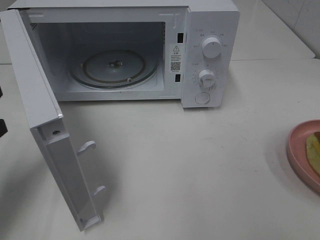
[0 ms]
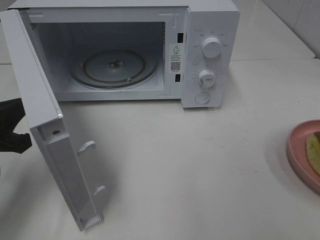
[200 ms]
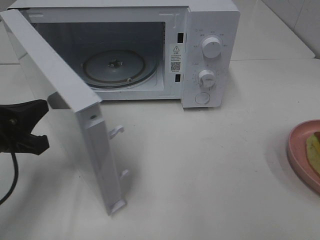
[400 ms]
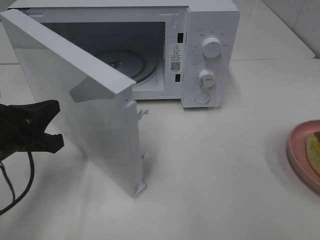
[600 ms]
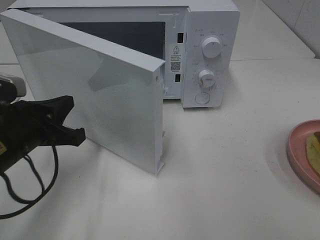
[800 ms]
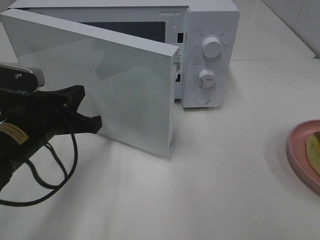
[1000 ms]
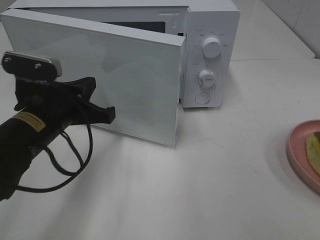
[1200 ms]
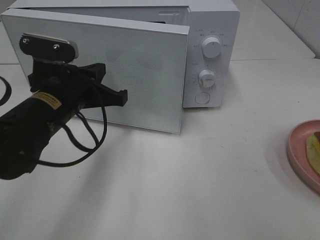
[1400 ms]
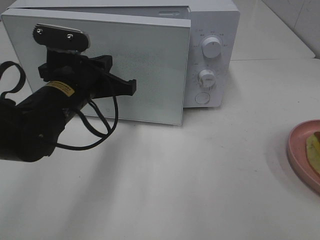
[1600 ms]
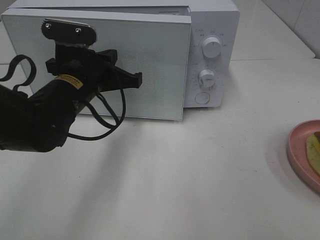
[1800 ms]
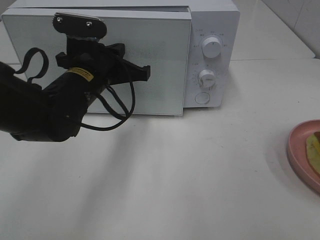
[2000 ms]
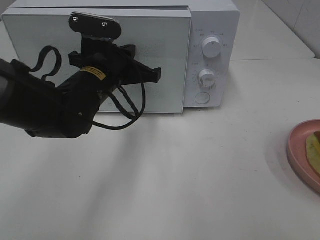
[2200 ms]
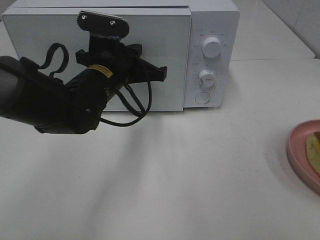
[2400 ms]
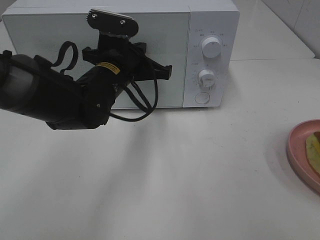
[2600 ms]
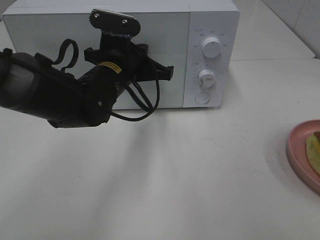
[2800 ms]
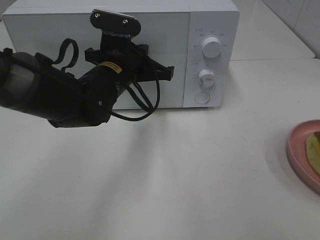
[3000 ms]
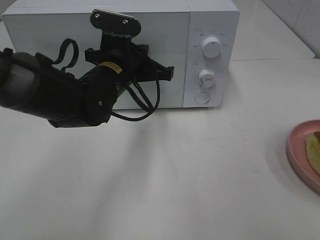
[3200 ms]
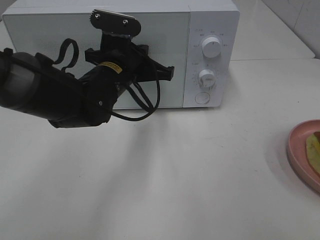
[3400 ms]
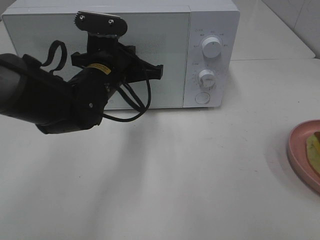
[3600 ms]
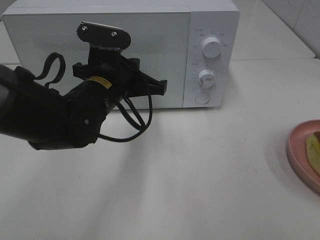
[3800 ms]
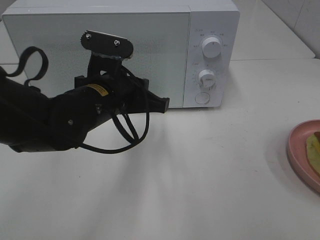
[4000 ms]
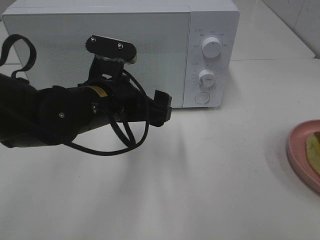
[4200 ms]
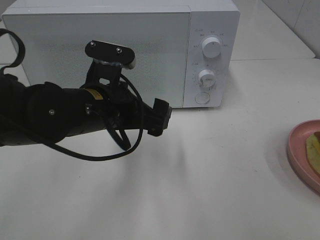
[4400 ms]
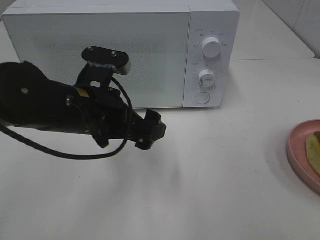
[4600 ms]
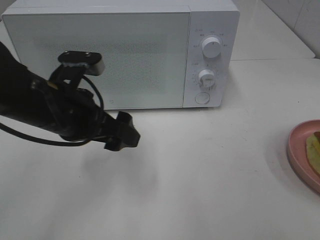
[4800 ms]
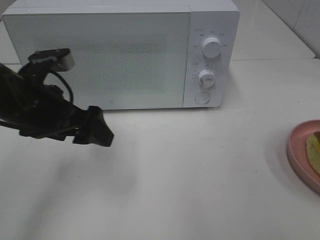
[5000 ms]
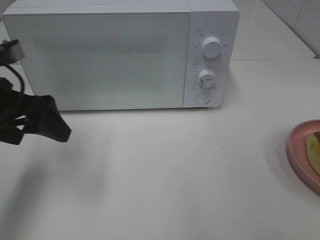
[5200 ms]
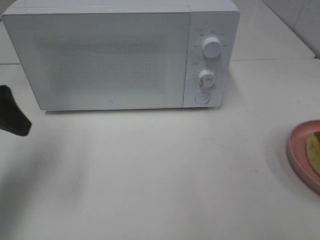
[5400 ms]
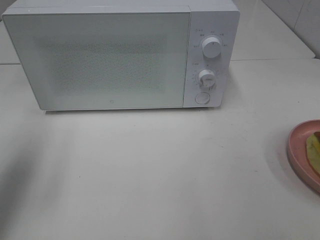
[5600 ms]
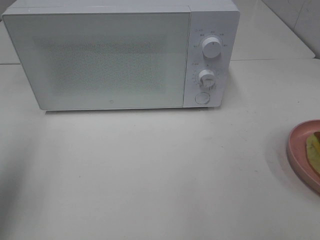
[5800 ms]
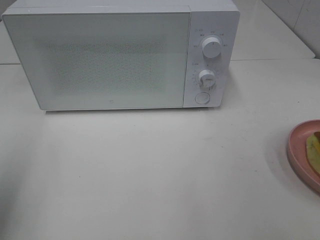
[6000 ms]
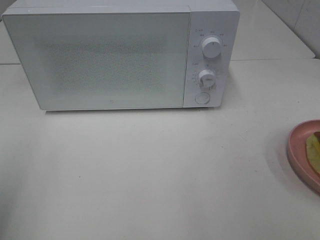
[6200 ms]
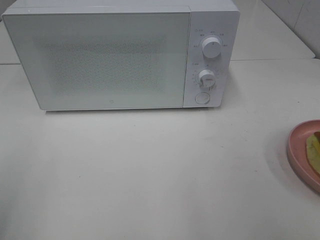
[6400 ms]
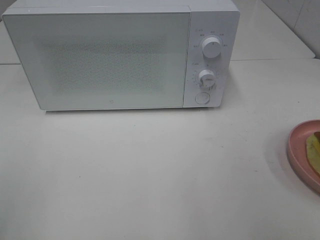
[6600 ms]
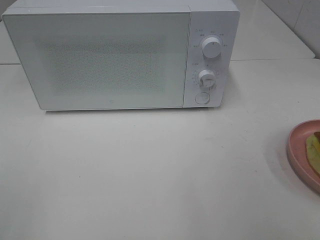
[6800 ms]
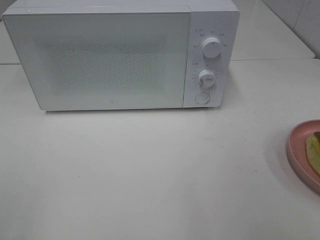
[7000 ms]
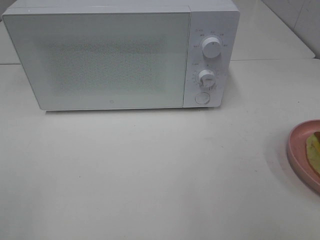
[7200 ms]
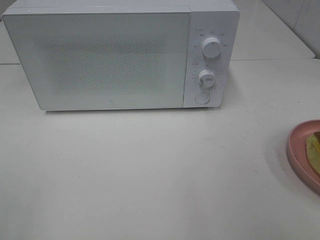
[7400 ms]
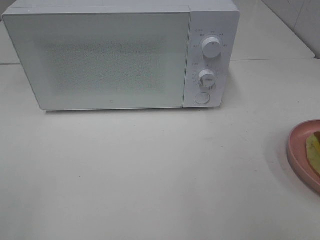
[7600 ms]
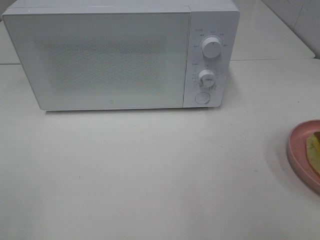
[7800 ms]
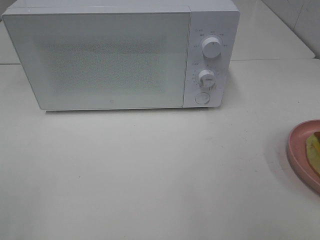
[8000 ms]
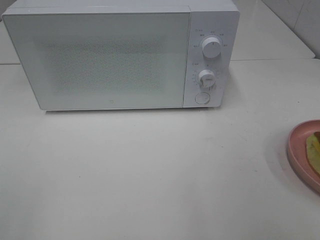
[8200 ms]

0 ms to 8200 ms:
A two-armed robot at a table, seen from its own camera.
Task of the whole recording: Heat Sandwich.
Step, 0 ms to 4200 ms: Left hand: close the microwave door.
0 ms to 1600 ms: The left gripper goes about 20 cm to the right and forward.
1600 ms to 3200 ms: The left gripper moves to the right and forward, about 10 cm.
3200 ms to 5000 ms: The left gripper heads to the left and backward, covering some 15 cm, and opens its fingers.
5000 ms to 6600 ms: The left gripper heads backward and to the left, covering about 25 cm.

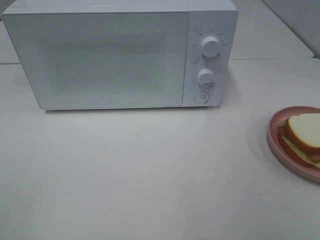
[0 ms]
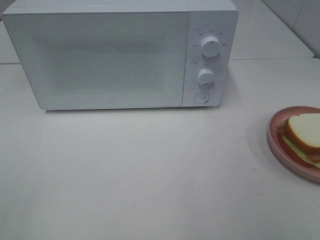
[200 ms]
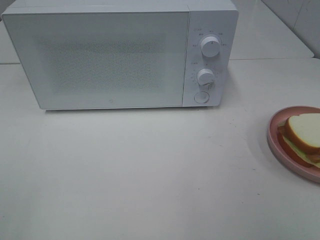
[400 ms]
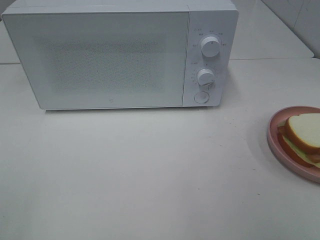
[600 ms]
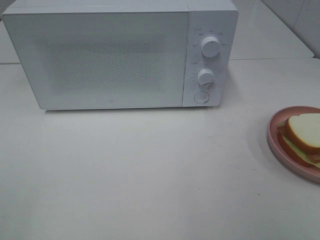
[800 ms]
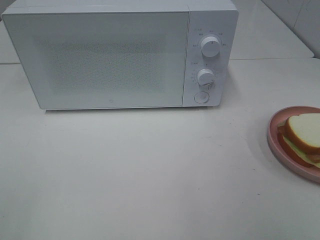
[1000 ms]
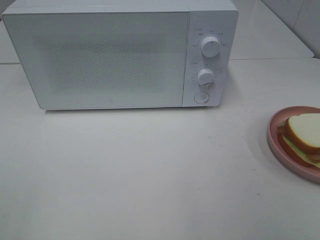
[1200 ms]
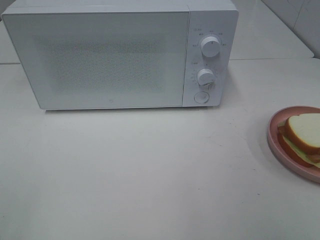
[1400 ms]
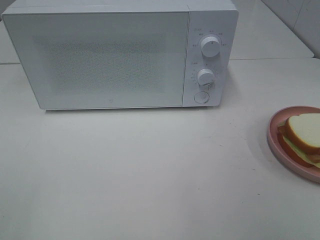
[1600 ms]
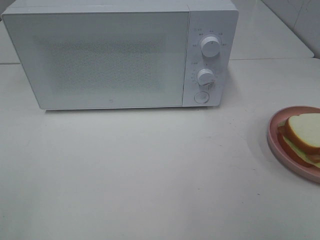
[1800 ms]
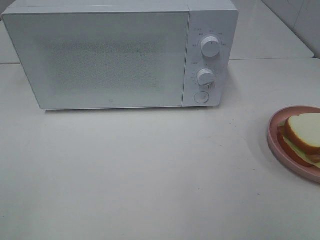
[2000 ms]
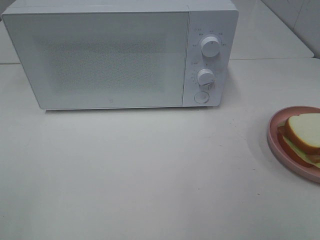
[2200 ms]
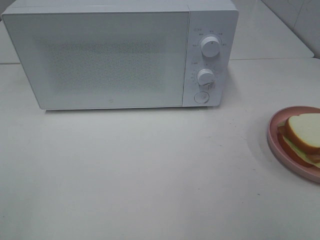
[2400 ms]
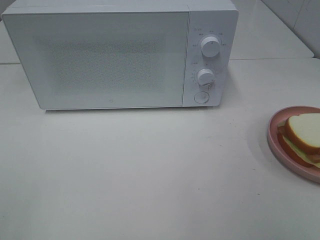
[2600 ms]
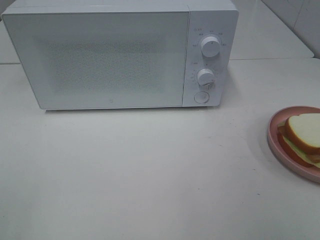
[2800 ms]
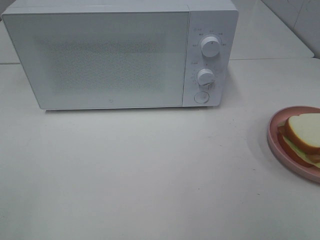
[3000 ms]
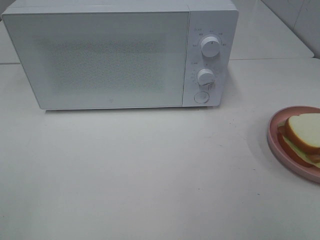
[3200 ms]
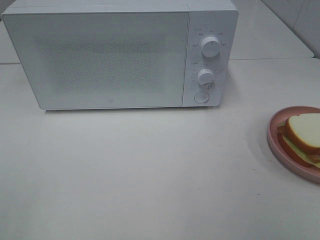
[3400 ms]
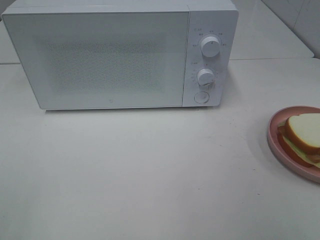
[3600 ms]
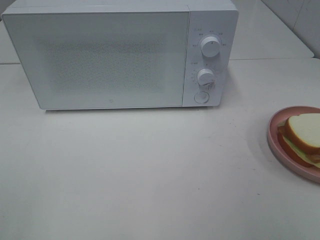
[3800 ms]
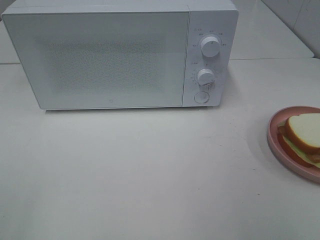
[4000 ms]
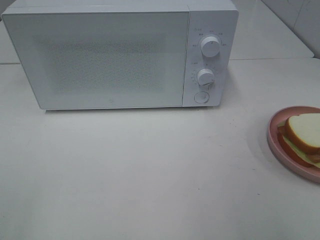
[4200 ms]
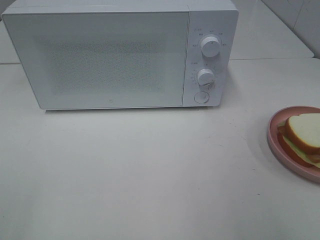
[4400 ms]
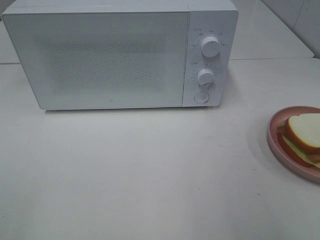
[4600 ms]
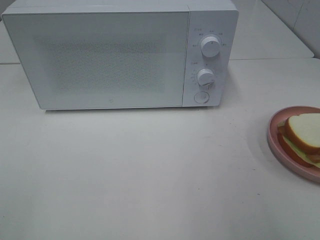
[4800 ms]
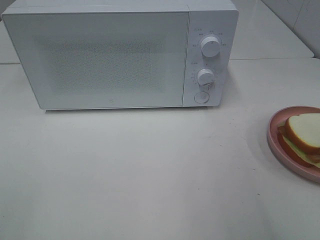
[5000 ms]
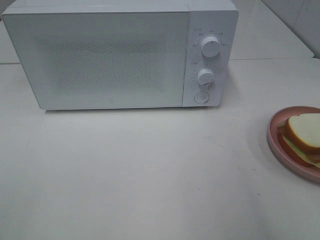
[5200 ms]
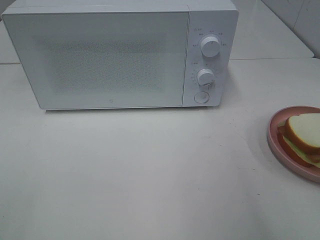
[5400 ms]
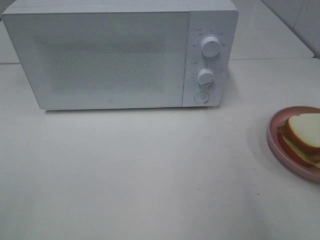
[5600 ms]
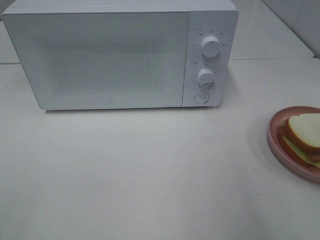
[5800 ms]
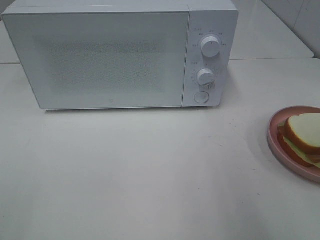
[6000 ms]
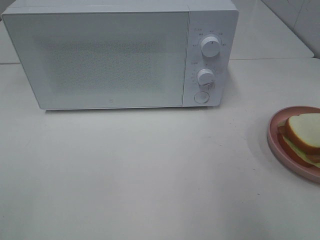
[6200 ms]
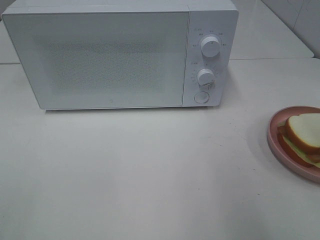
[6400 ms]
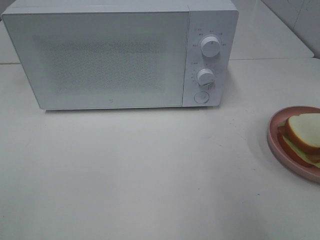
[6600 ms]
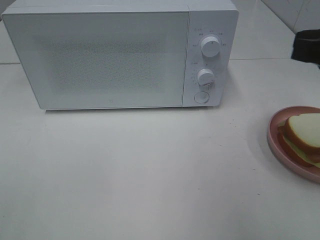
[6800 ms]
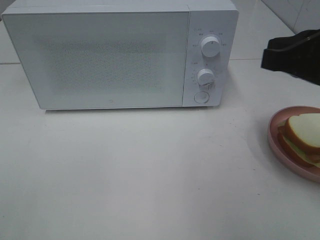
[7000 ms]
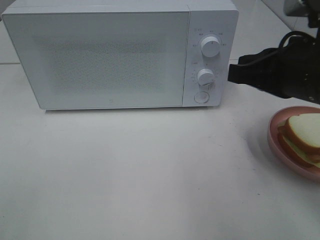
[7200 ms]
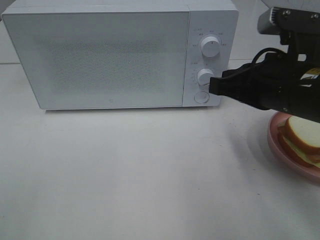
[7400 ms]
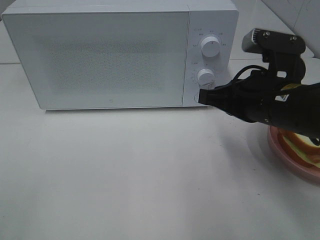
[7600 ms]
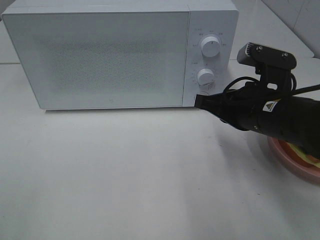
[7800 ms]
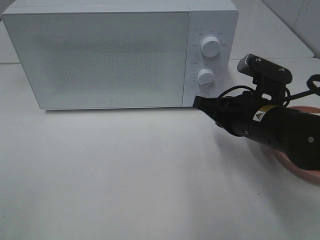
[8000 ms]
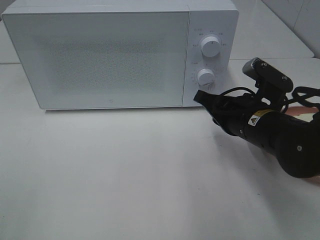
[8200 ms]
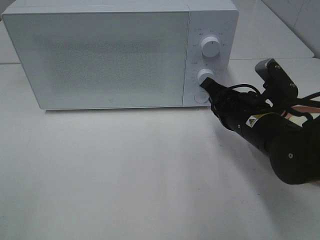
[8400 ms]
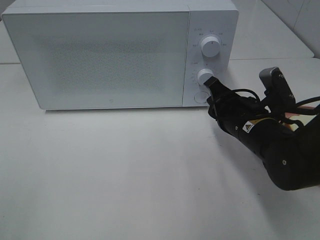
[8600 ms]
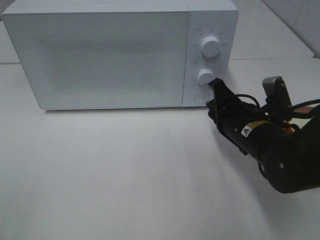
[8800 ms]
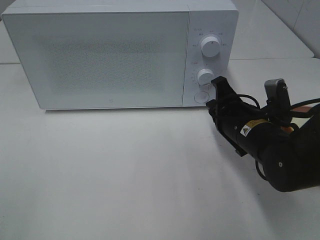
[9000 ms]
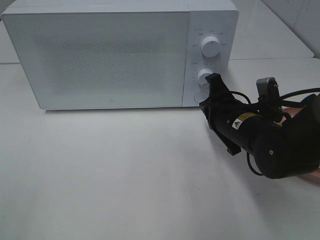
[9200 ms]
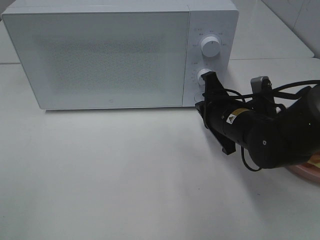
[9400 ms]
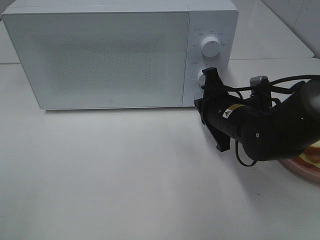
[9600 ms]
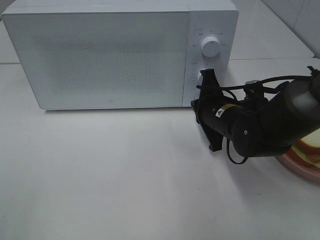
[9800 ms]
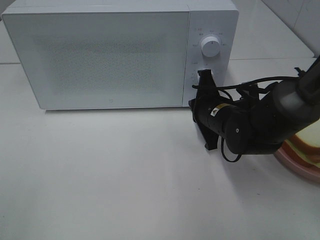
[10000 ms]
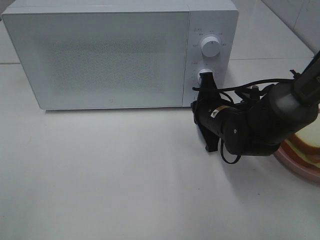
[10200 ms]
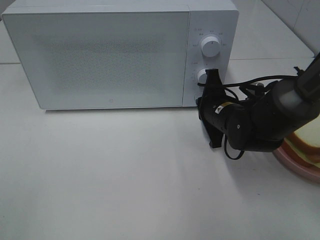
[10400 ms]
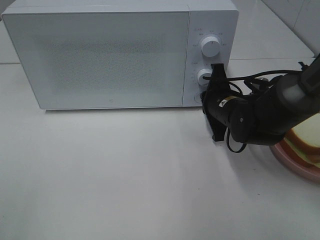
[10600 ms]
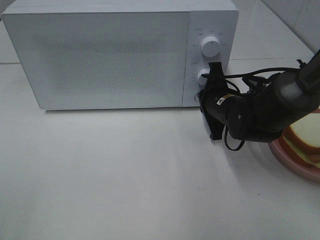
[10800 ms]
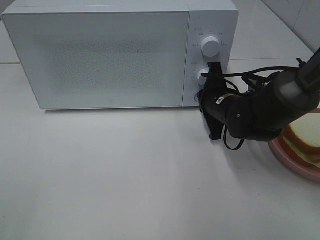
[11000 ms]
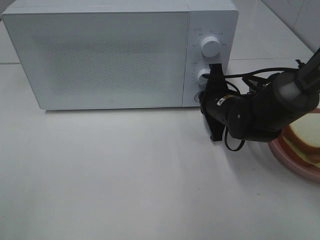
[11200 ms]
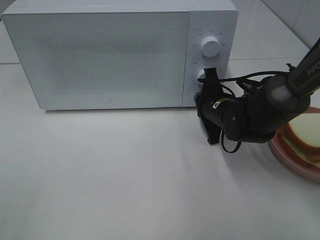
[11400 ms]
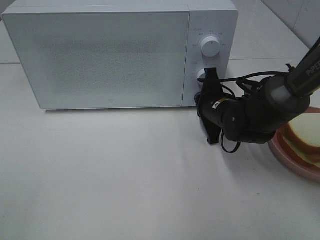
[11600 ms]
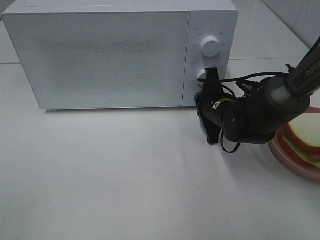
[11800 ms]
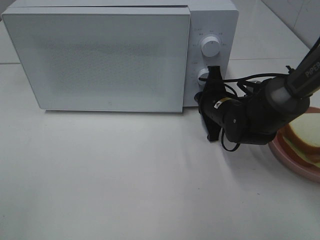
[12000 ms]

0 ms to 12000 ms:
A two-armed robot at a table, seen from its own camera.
Task of the whole recording: Heat Sandwich.
0 ms to 3000 ms: The two grippers keep their place.
6000 ms to 7600 ms: The right gripper is displaced downward, to the left and forward by some 20 cm.
7600 ms to 9000 ms: The right gripper travels downward by approximately 10 cm.
9000 ms to 10400 ms: The right gripper moves forward, some 5 cm.
10400 ms to 12000 ms: There are only small adjustments of the grippers.

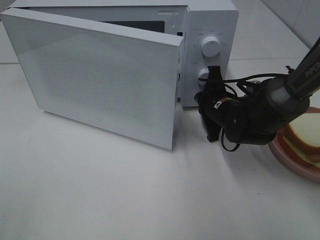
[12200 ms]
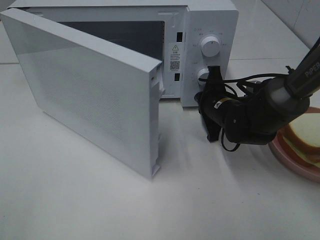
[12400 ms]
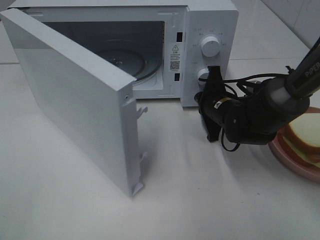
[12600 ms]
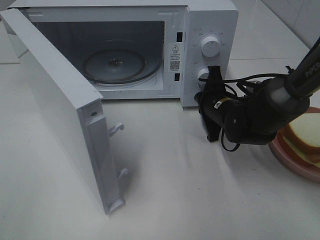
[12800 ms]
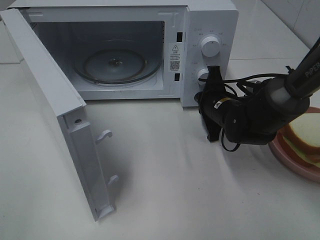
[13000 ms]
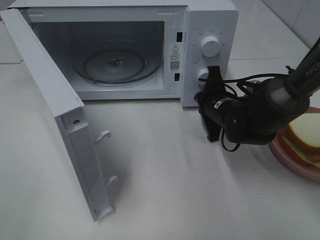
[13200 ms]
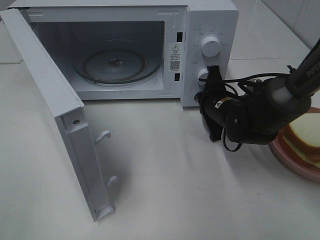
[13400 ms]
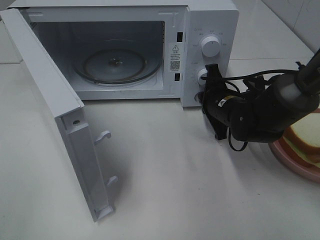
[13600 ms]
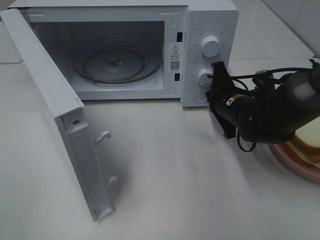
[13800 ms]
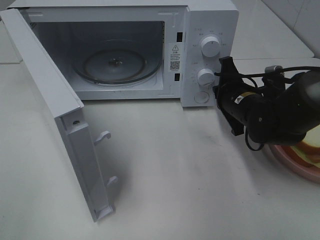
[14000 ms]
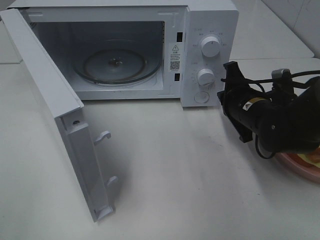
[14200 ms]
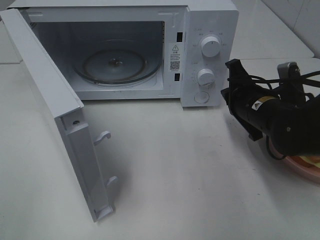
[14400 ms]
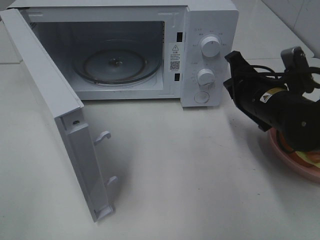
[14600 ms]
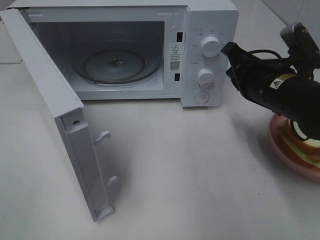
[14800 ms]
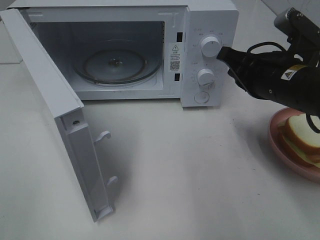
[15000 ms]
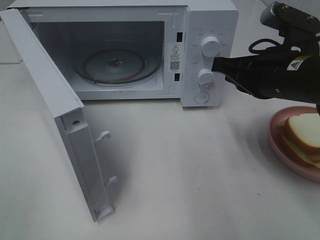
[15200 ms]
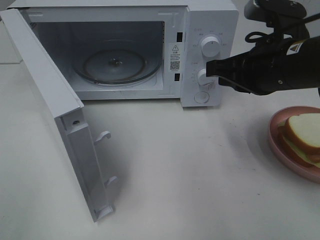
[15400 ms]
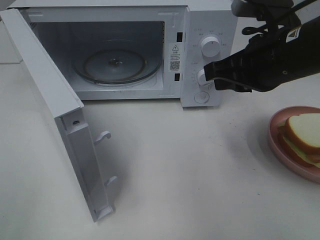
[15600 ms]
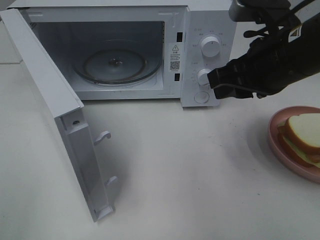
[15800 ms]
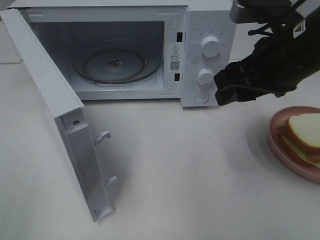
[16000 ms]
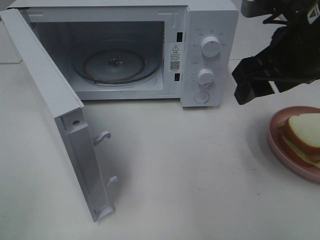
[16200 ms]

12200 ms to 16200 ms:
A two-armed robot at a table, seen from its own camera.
Task of the whole recording: Heat Sandwich.
13600 ms to 14800 ms: The right gripper goes roughly 10 cm upward and backward.
14800 ms to 16200 ms: The right gripper heads upward, covering roughly 10 cm, and opens its fingers.
